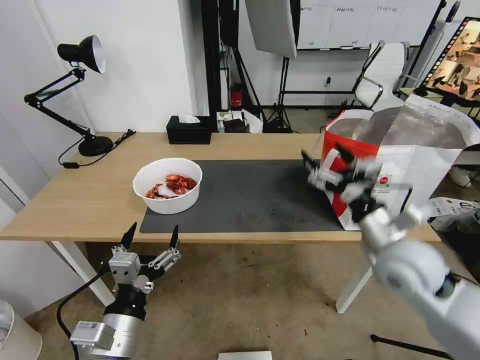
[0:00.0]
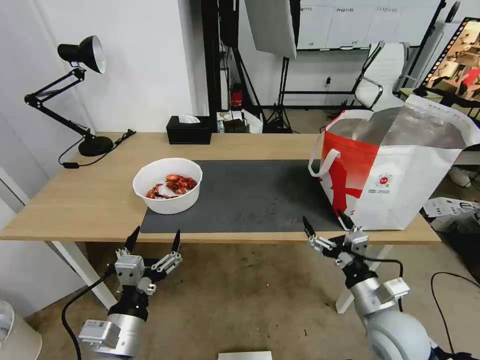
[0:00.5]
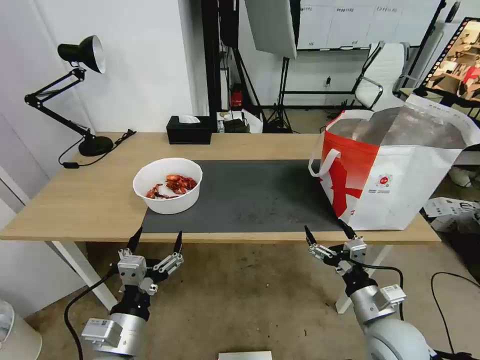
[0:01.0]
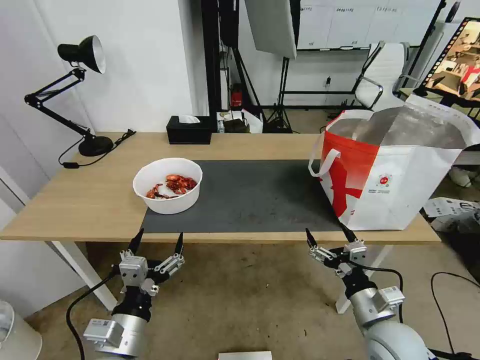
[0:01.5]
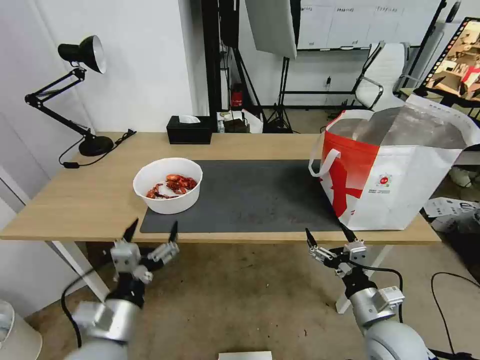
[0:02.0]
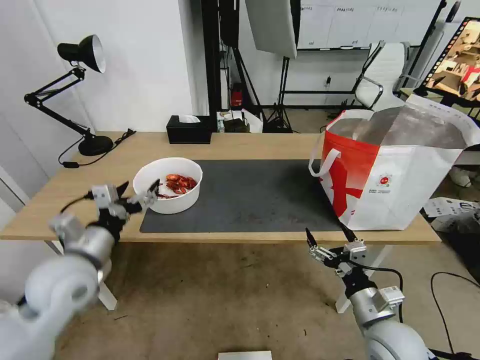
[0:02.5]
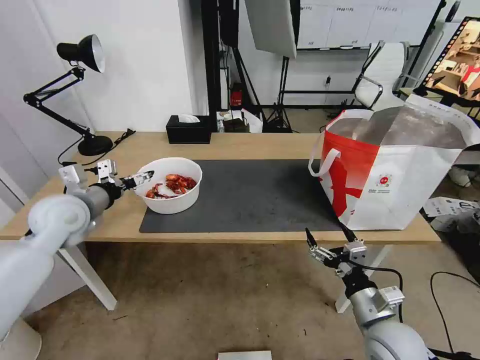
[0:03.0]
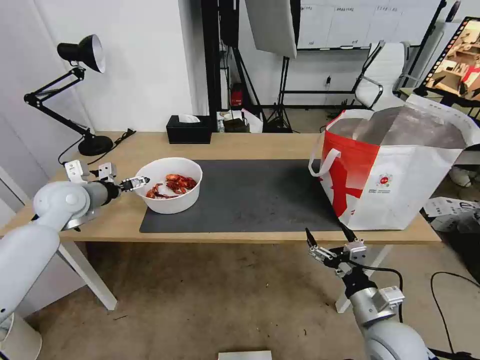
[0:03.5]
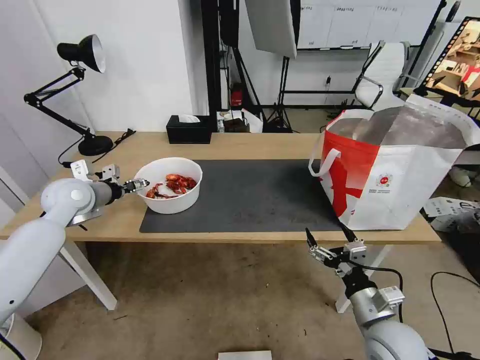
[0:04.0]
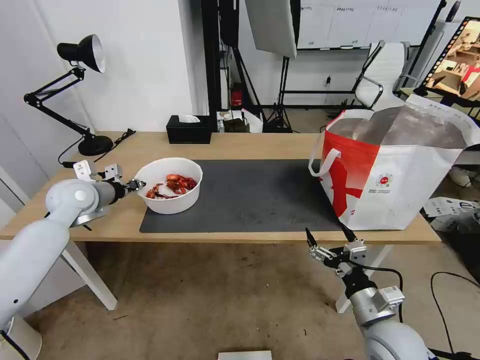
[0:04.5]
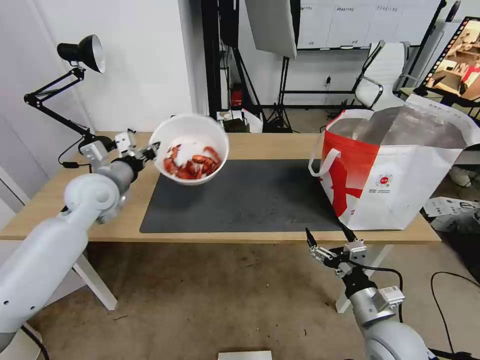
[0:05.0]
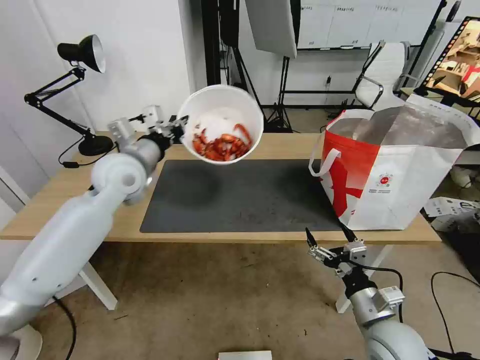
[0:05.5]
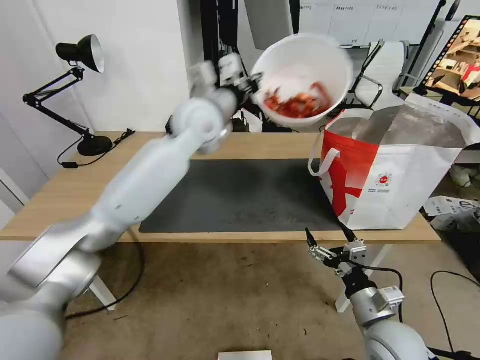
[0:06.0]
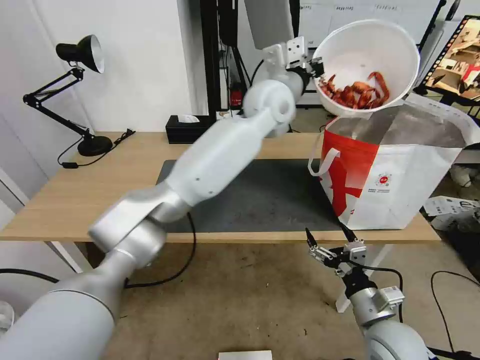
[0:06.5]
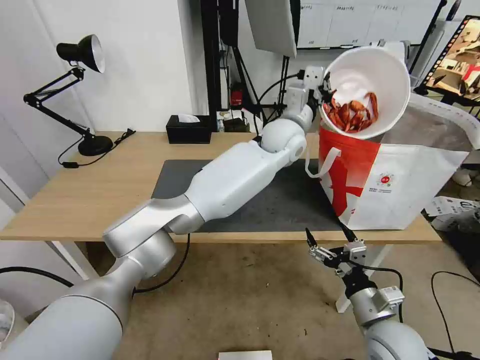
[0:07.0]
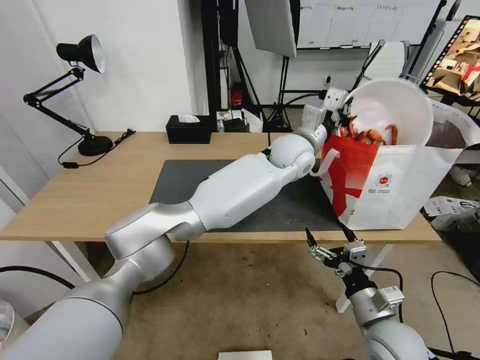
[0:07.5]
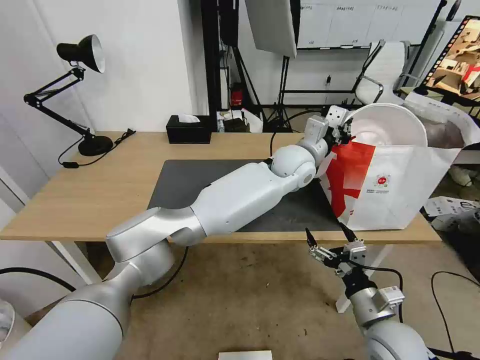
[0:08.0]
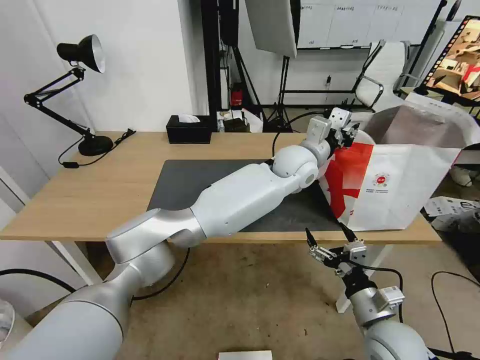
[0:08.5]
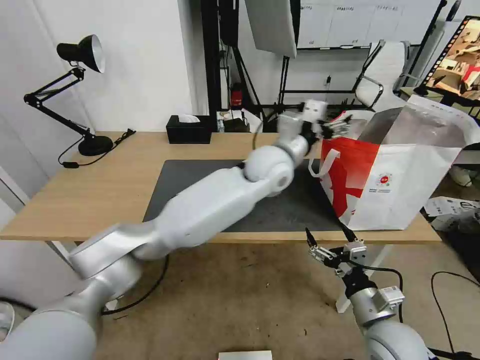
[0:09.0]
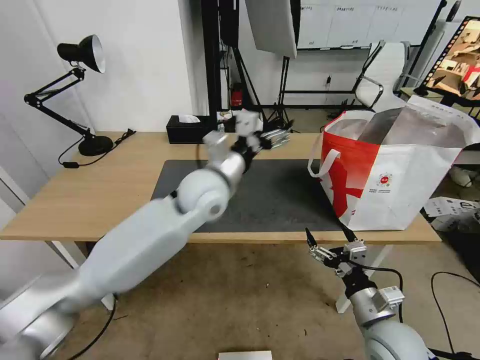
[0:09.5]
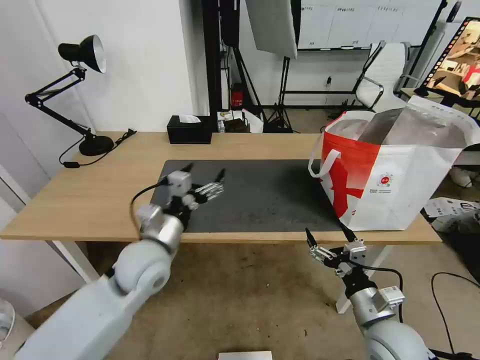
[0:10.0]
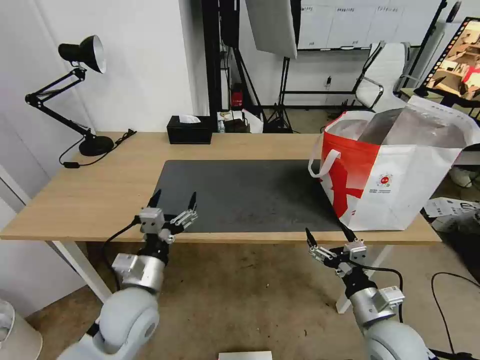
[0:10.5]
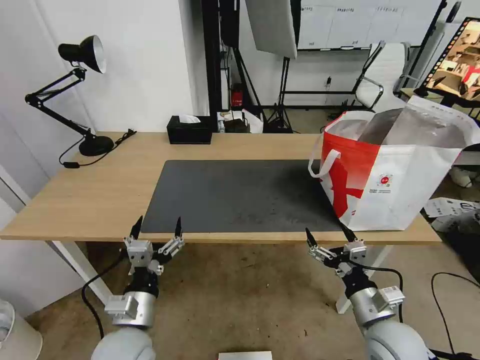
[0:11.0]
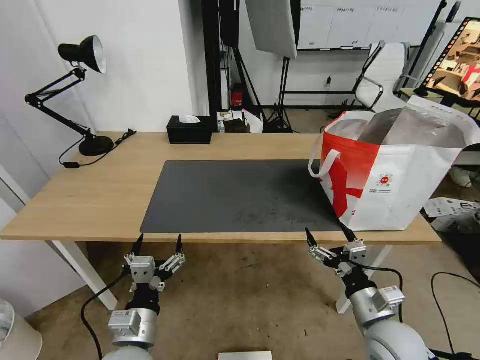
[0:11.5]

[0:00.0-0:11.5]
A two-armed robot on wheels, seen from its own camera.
Task of the whole recording: Pick up the trash from the table and place it into the takeout bag.
0:00.0 to 0:02.0: The right gripper heads downward and backward, covering roughly 15 cm.
0:02.0 to 0:04.0: The left gripper shifts about 35 cm forward and to the left.
0:04.0 to 0:06.0: The left gripper heads to the right and upward, covering roughly 35 cm, and closes its fingers.
0:06.0 to 0:07.5: The left gripper goes roughly 20 cm to the right and downward.
0:07.5 to 0:09.5: The left gripper is displaced to the left and backward by approximately 20 cm, and opens its fingers.
0:09.5 to 0:11.5: The left gripper travels backward, downward and to the left by about 35 cm.

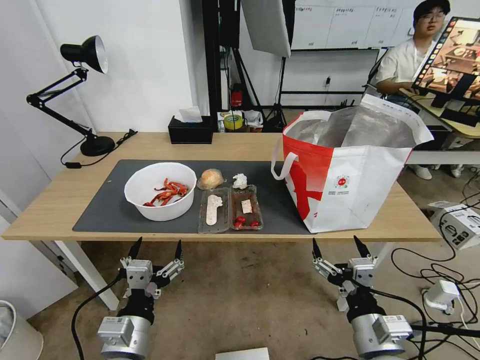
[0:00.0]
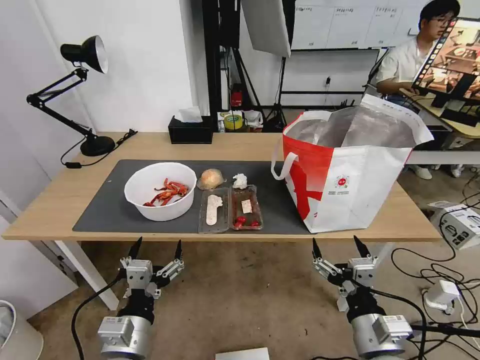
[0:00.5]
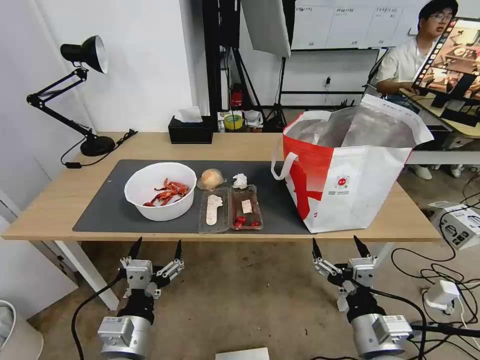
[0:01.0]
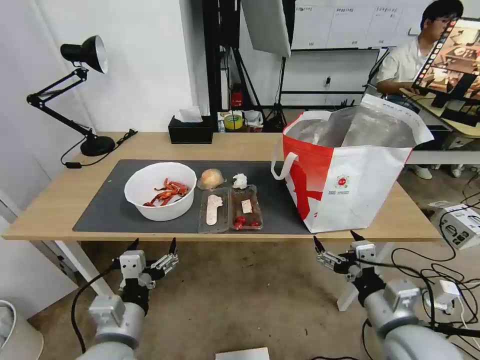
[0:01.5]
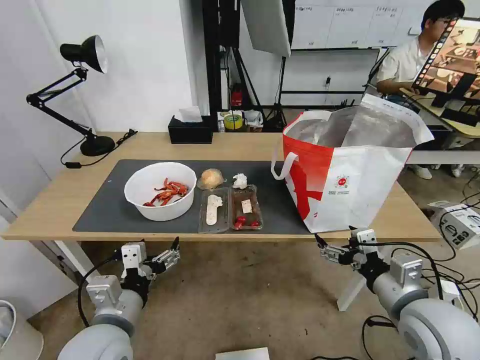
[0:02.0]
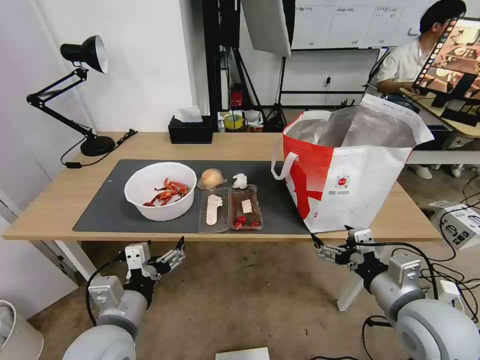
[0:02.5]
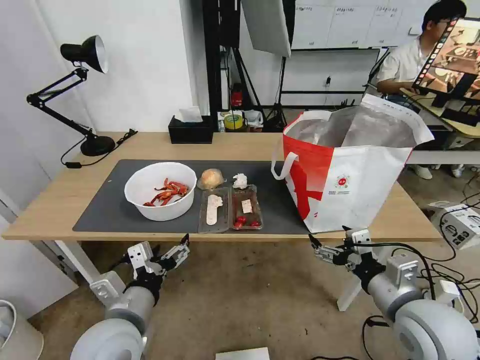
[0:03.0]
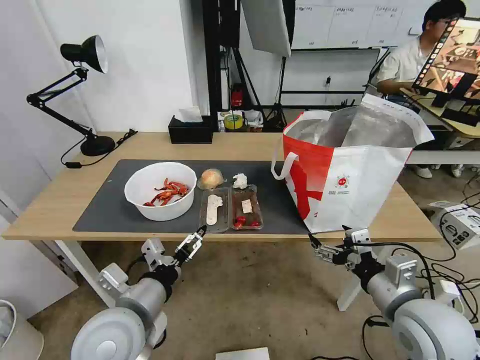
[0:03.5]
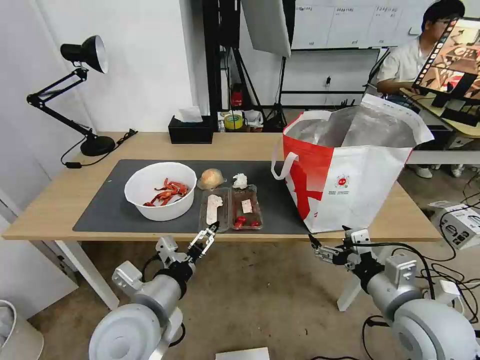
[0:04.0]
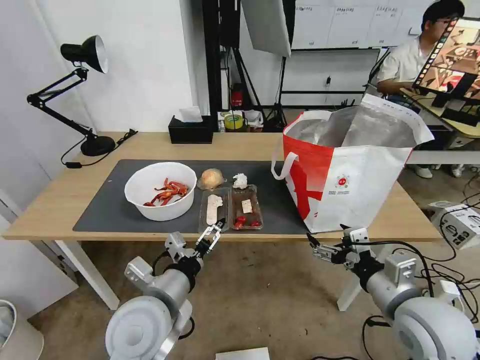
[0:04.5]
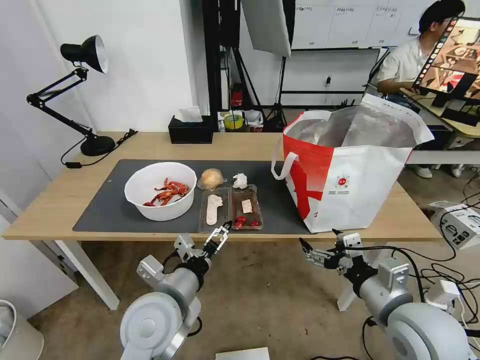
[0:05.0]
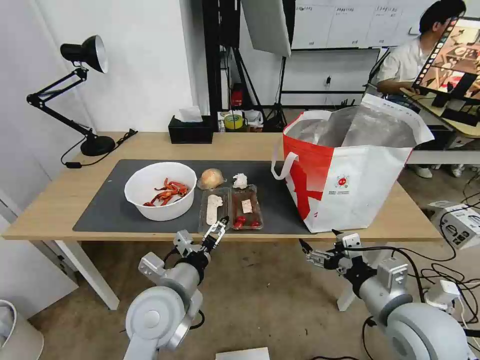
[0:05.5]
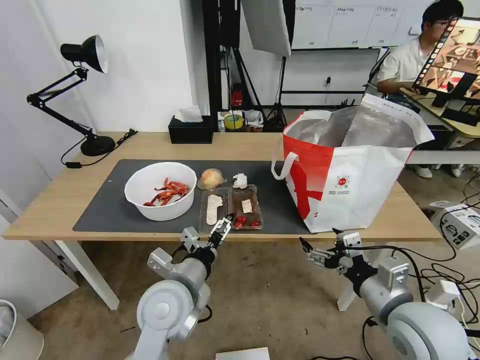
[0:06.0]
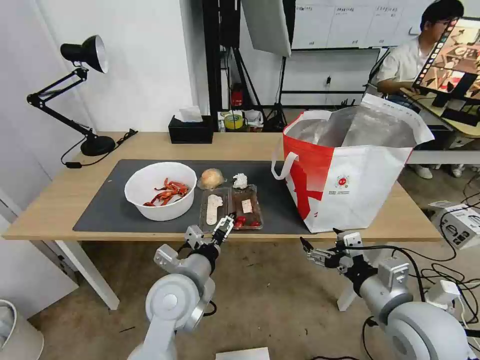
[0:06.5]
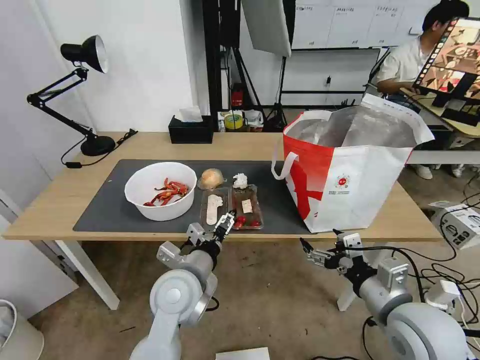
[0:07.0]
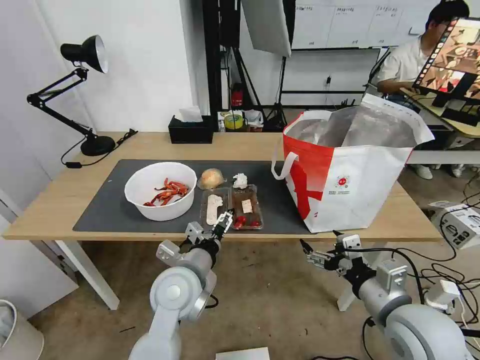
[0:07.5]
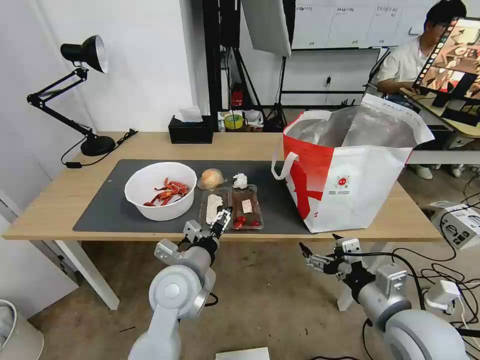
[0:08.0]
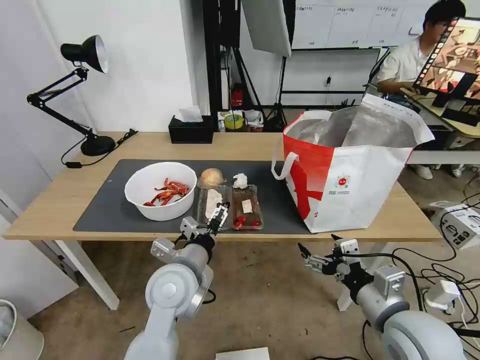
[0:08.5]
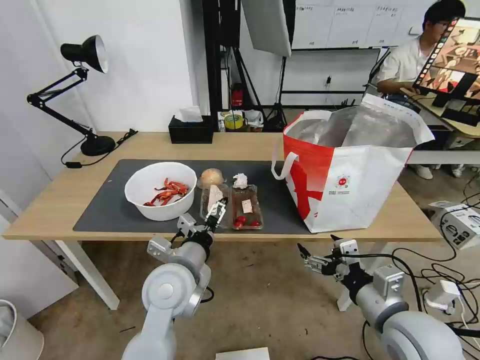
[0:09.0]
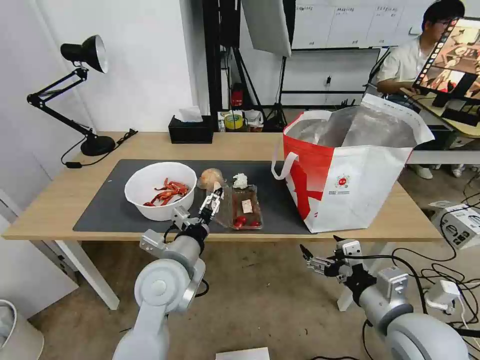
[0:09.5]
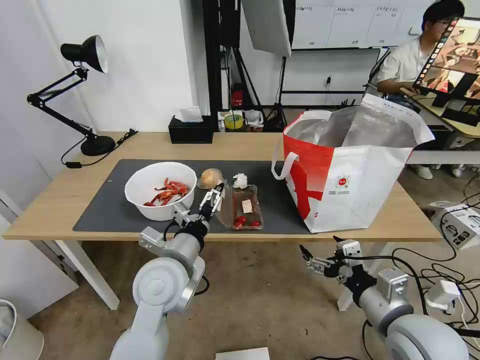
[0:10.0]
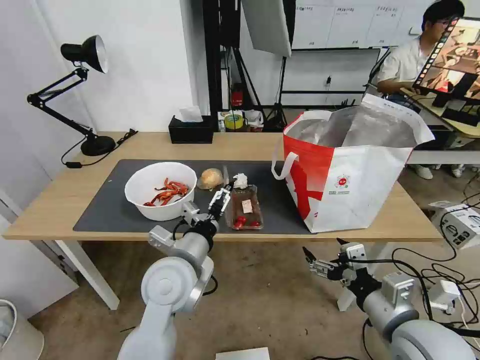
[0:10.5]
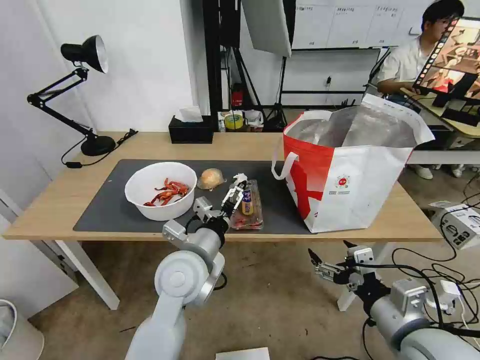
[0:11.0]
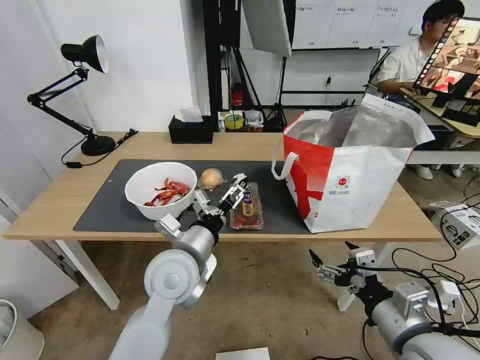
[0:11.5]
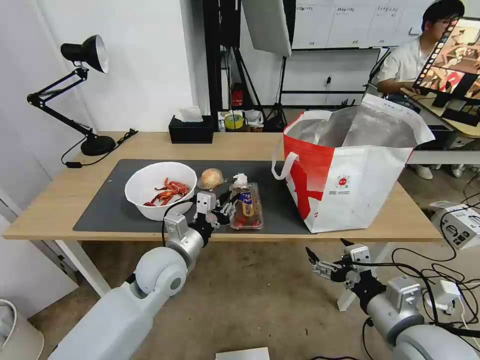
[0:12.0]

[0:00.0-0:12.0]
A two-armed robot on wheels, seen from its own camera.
Task of the whole recording: Pick up the trash from the table and place it into the takeout bag.
0:02.0 to 0:04.0: The left gripper heads to the right, covering about 5 cm.
0:04.0 to 0:06.0: The left gripper goes approximately 5 cm forward.
0:06.0 to 0:10.0: The grippers stay close to where they were, moving slightly.
0:10.0 to 0:12.0: The left gripper changes place by approximately 5 cm, and closes.

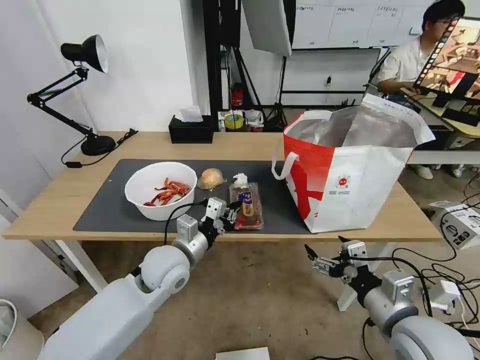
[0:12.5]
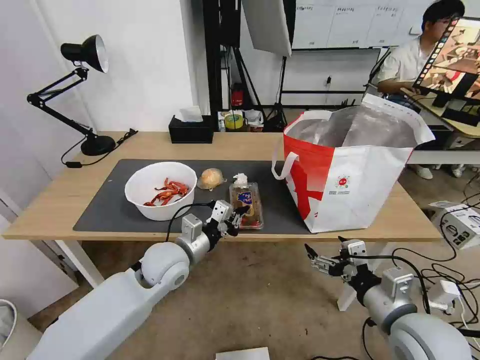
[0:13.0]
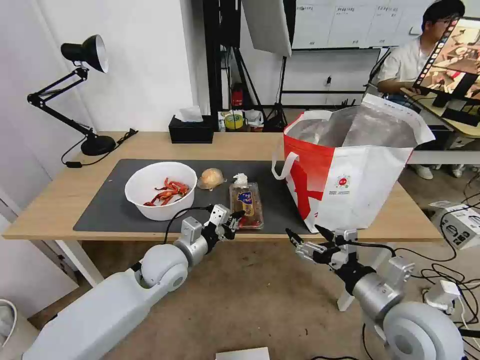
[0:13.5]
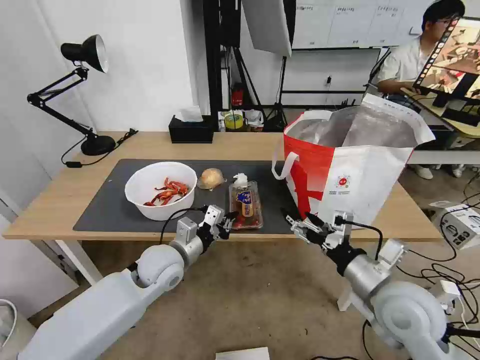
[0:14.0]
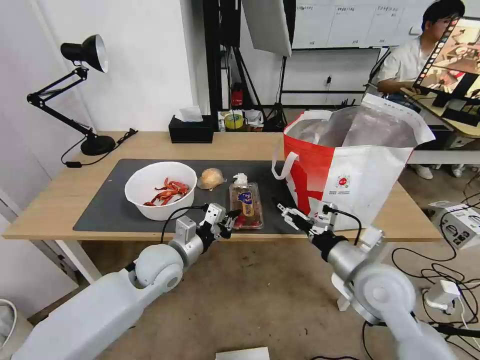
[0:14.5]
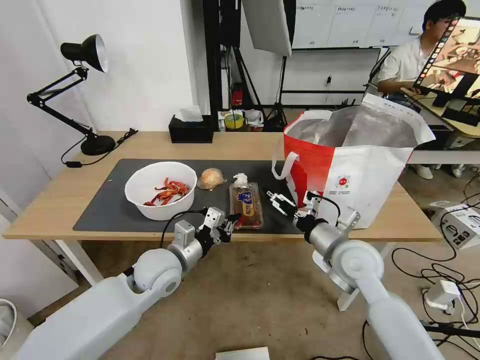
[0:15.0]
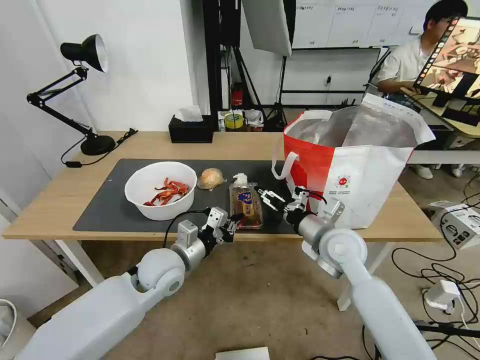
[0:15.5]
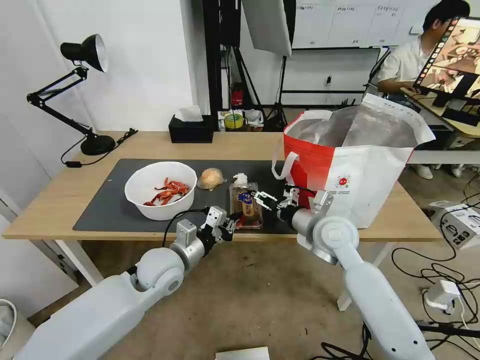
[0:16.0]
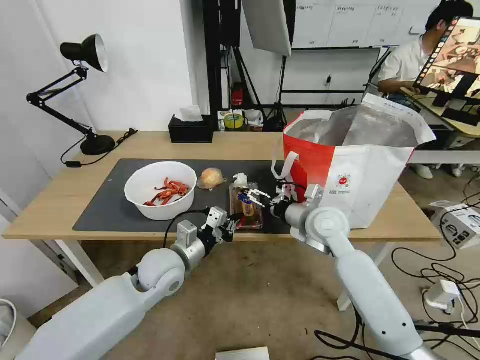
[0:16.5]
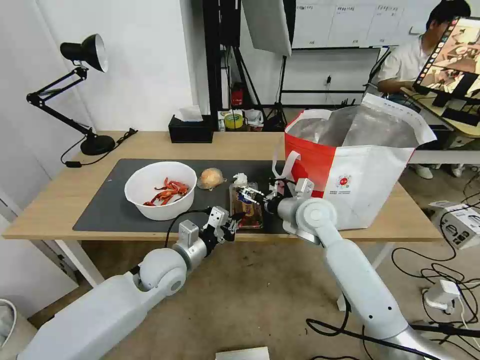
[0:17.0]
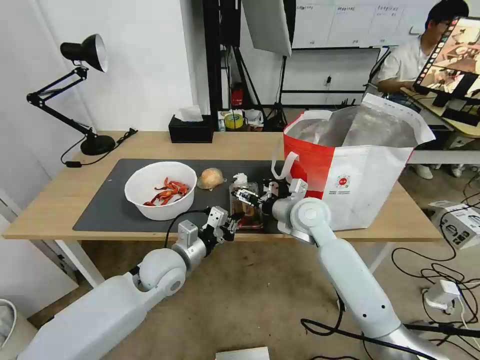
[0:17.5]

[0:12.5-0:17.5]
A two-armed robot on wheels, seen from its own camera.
Task of the whole recording: Pick up the trash from the table and place it into the takeout bag.
0:12.5 to 0:15.0: The right gripper goes about 15 cm forward.
0:15.0 to 0:17.5: The right gripper goes roughly 15 cm forward and to the left.
